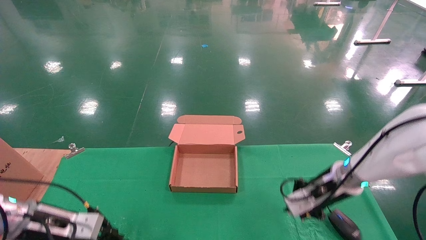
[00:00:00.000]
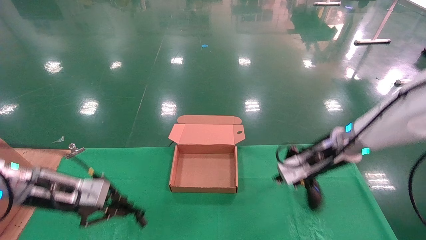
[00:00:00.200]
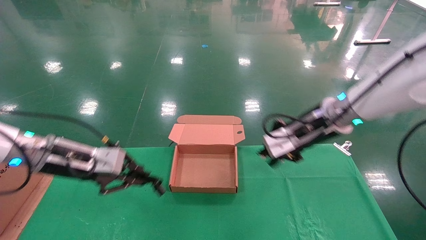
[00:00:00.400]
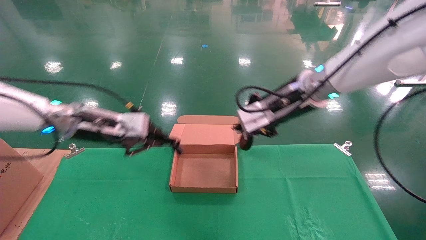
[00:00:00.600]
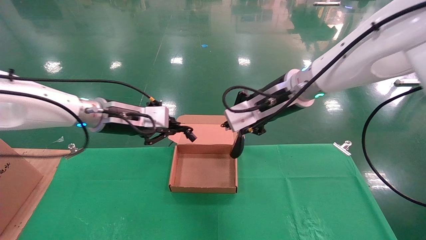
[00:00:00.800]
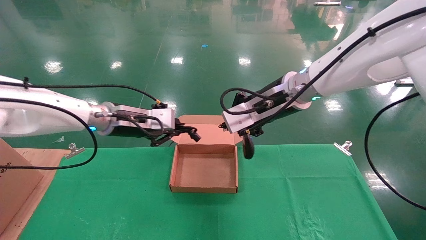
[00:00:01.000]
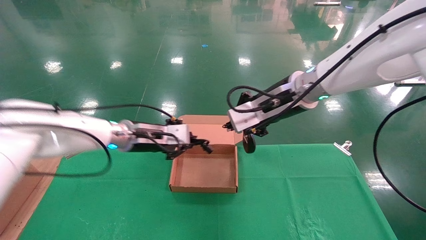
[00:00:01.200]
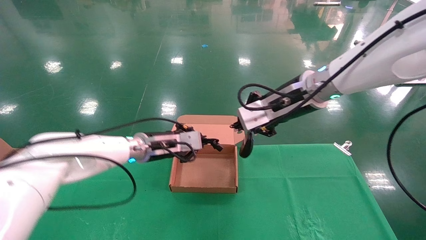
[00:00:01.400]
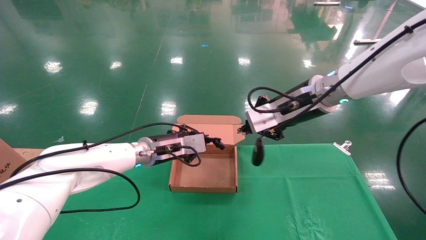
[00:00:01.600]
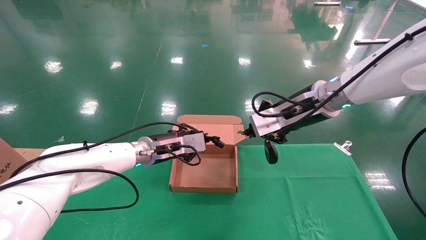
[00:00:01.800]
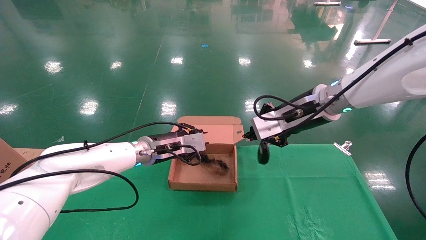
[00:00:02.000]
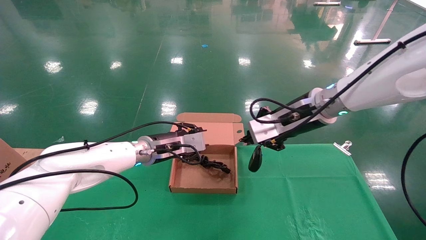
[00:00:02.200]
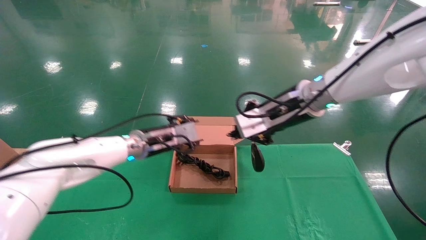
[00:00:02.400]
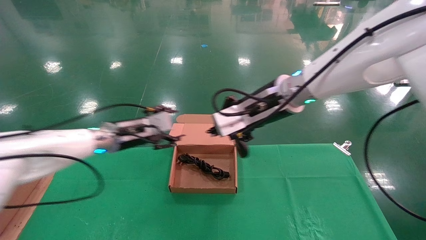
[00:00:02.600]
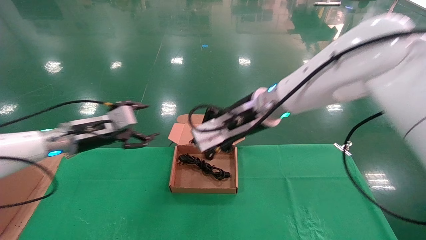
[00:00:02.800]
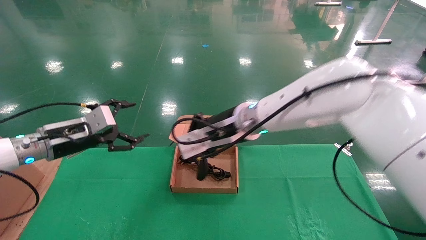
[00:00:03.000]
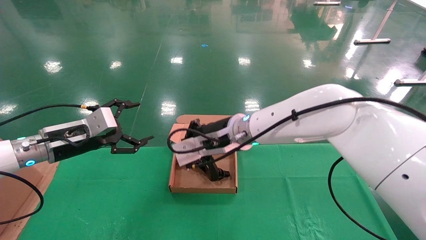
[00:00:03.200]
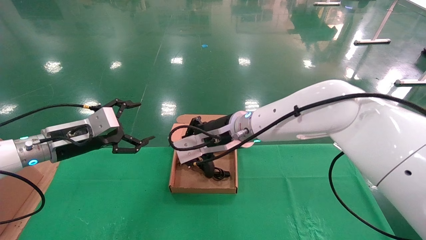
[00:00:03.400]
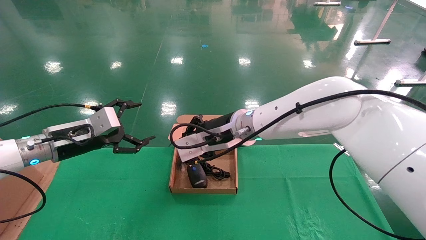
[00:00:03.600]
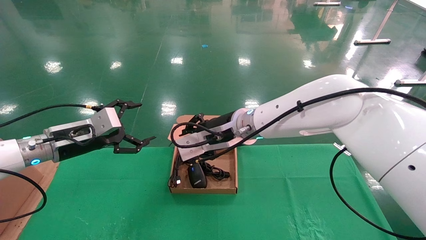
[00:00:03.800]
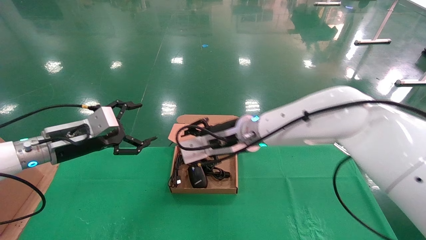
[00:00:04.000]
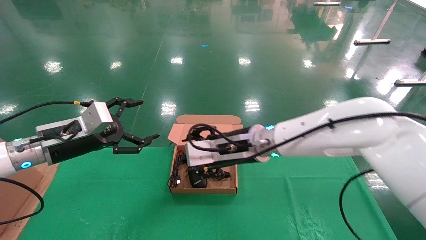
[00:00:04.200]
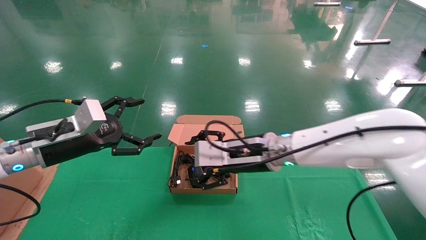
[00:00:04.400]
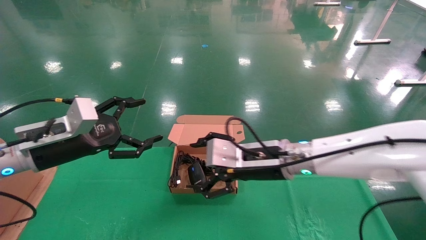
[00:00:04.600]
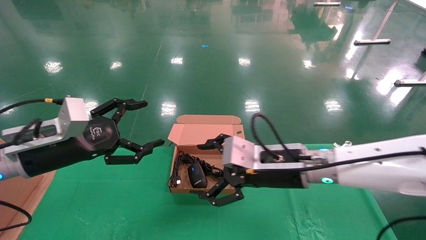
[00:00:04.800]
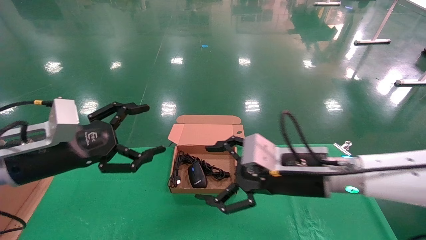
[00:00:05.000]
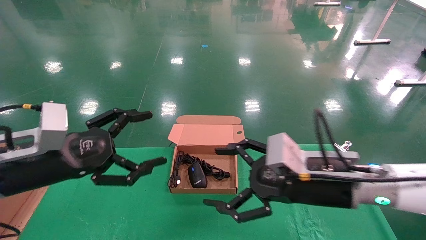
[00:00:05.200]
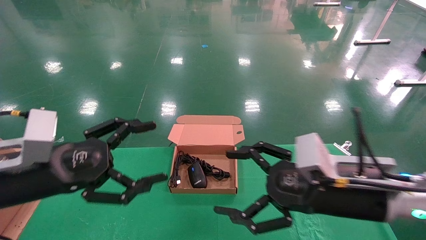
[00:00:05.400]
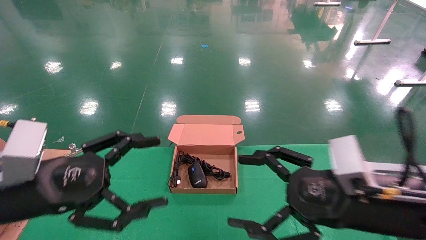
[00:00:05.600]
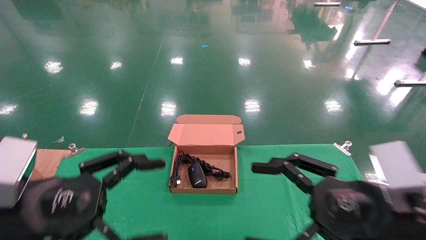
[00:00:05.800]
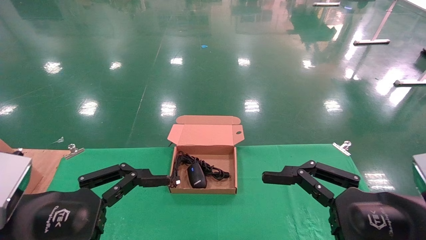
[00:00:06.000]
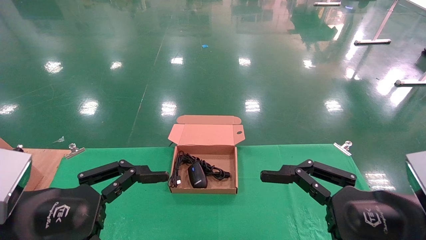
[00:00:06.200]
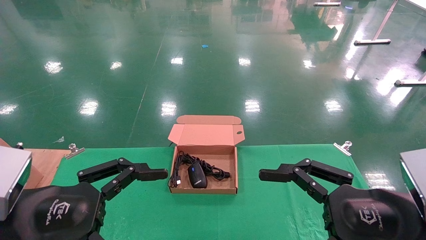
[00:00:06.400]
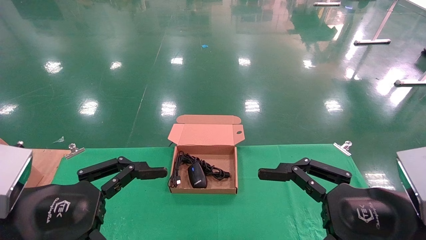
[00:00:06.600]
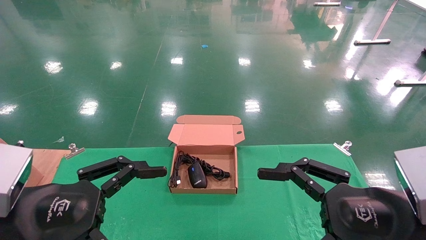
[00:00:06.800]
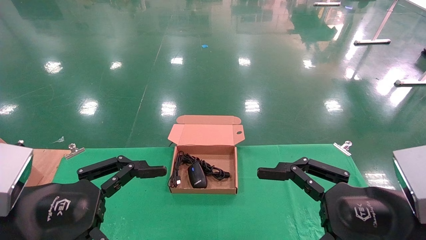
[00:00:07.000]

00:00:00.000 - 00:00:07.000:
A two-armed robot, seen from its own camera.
Step, 00:00:00.200 - 00:00:04.200: Place the mouse and power cord into the box.
00:00:00.000 - 00:00:01.400: The right gripper travels upward and to the left by some 20 cm, while the left gripper moves to the right, forward and upward, roughly 25 cm.
00:00:01.400 - 00:00:02.800: Both grippers move to the left, roughly 10 cm. The left gripper opens.
00:00:02.800 - 00:00:04.200: The left gripper is displaced backward by some 5 cm. Meanwhile the right gripper goes about 5 cm downward, and opens.
00:00:04.200 - 00:00:05.600: The left gripper goes roughly 15 cm backward, while the right gripper heads to the right and backward, covering about 25 cm, and opens up.
00:00:05.600 - 00:00:07.000: The right gripper ends up about 5 cm from where it was.
